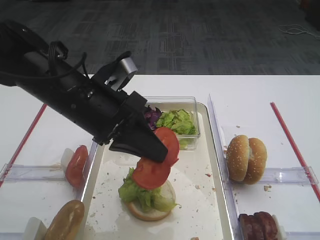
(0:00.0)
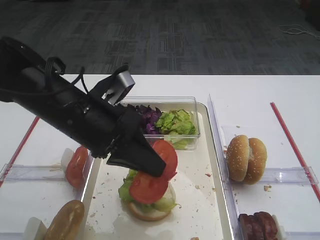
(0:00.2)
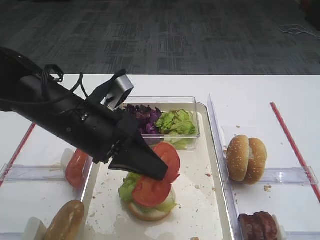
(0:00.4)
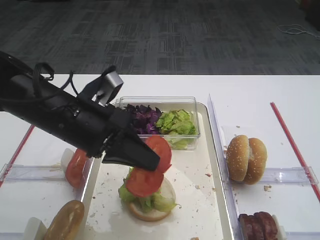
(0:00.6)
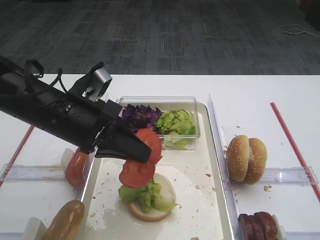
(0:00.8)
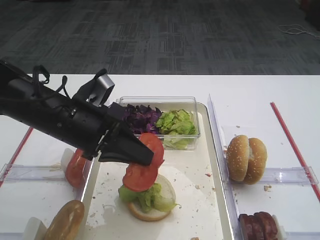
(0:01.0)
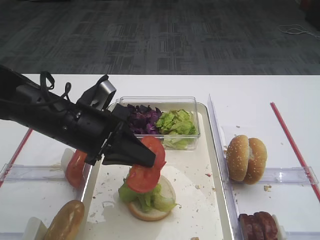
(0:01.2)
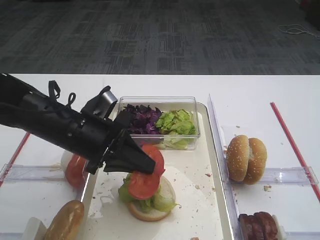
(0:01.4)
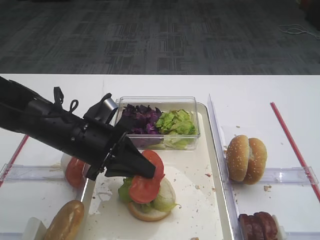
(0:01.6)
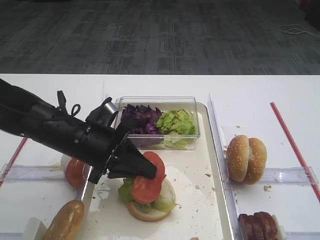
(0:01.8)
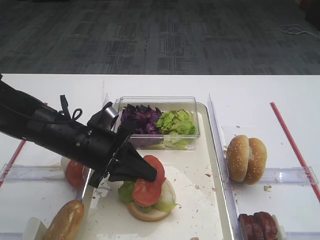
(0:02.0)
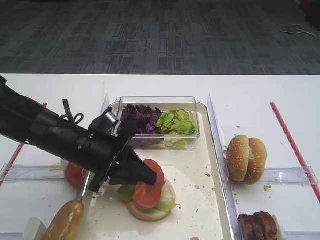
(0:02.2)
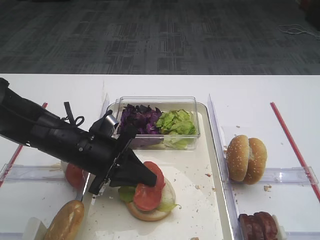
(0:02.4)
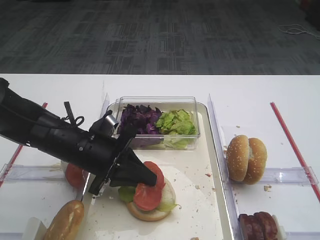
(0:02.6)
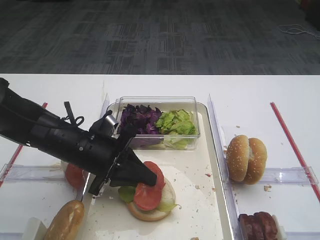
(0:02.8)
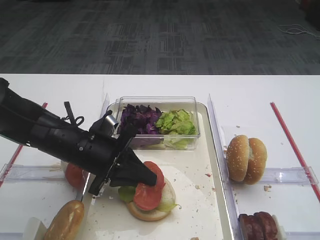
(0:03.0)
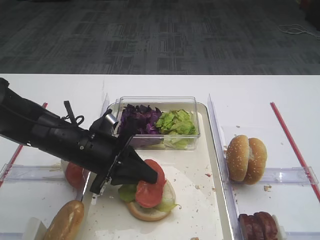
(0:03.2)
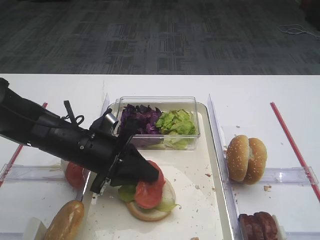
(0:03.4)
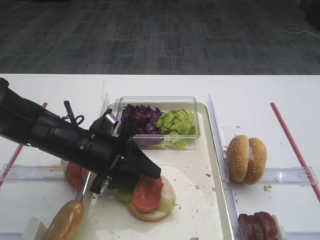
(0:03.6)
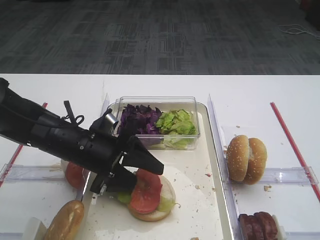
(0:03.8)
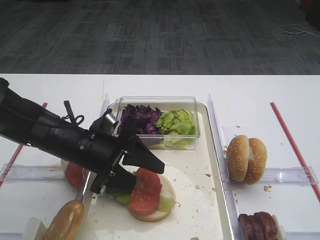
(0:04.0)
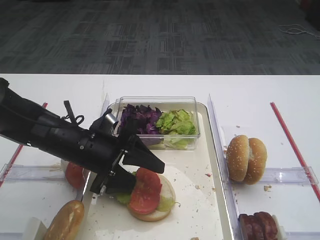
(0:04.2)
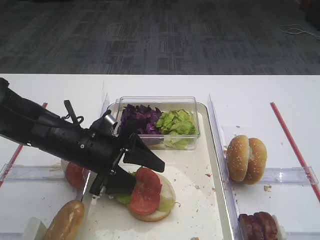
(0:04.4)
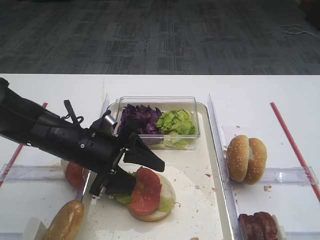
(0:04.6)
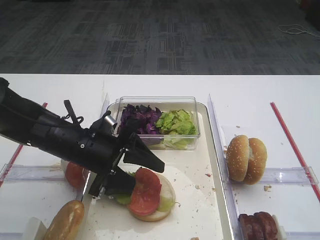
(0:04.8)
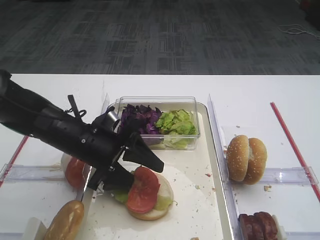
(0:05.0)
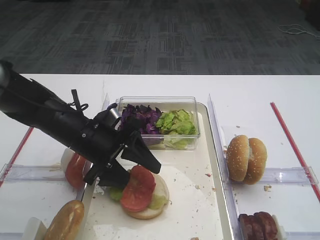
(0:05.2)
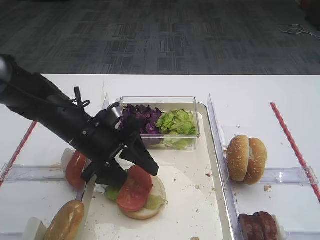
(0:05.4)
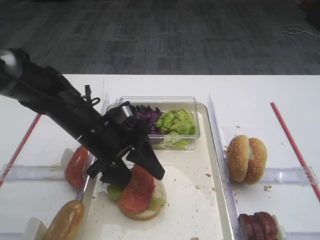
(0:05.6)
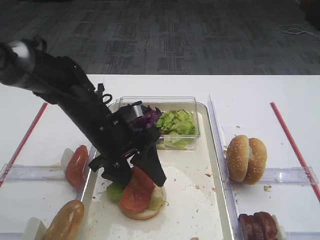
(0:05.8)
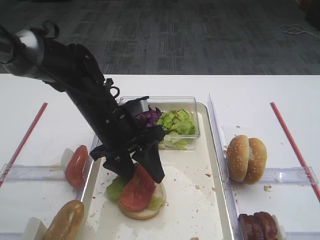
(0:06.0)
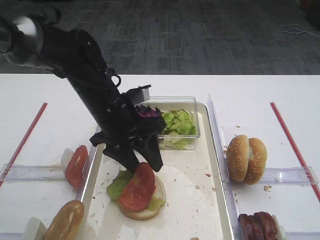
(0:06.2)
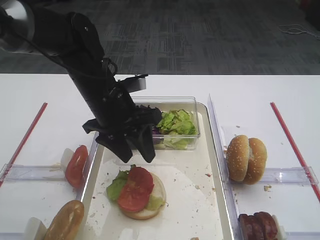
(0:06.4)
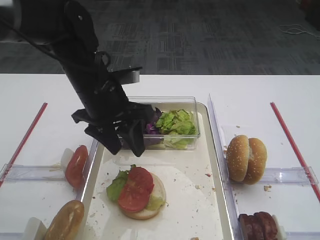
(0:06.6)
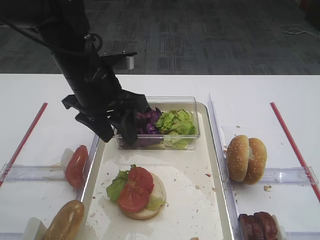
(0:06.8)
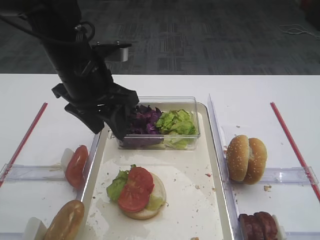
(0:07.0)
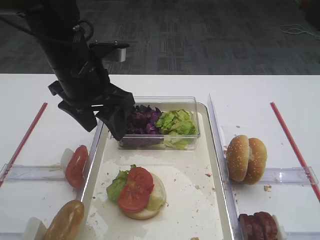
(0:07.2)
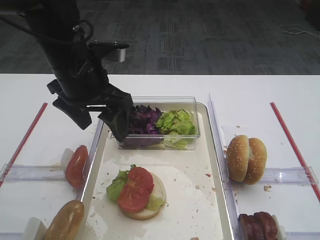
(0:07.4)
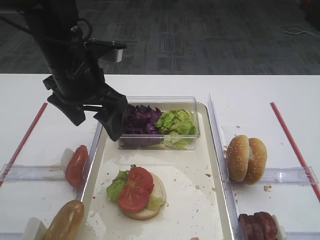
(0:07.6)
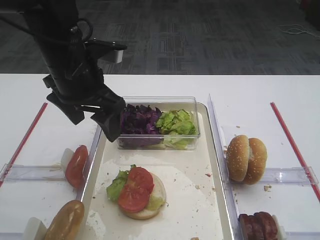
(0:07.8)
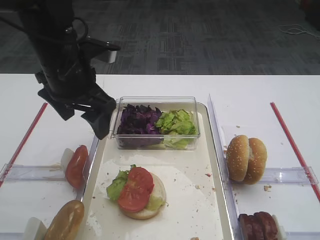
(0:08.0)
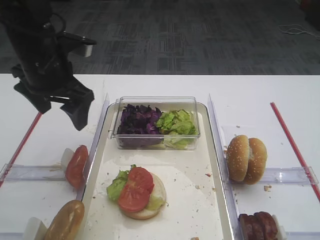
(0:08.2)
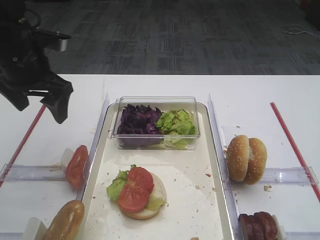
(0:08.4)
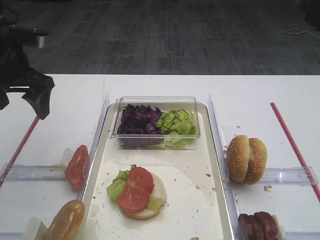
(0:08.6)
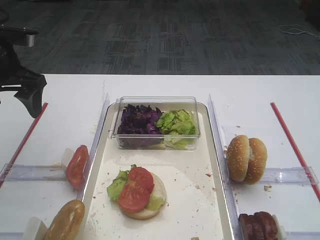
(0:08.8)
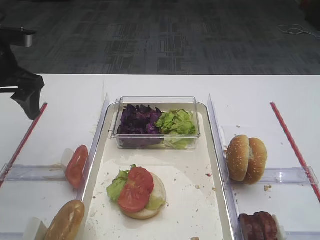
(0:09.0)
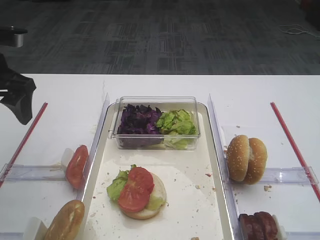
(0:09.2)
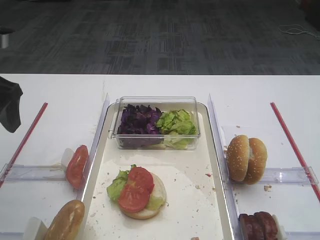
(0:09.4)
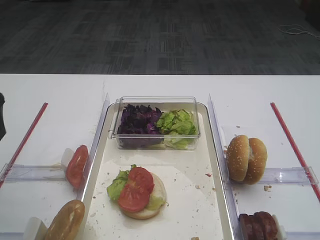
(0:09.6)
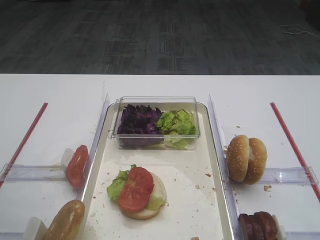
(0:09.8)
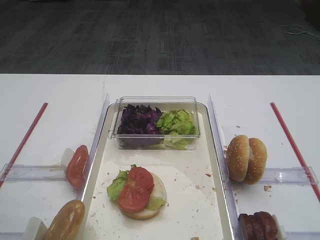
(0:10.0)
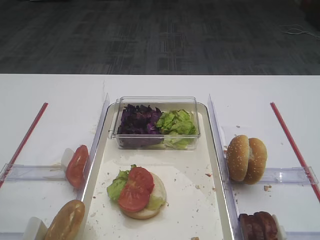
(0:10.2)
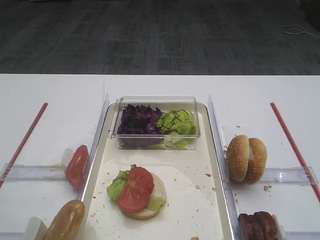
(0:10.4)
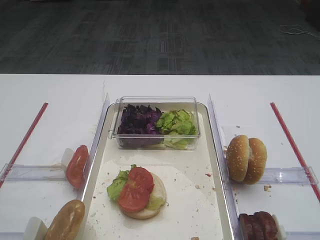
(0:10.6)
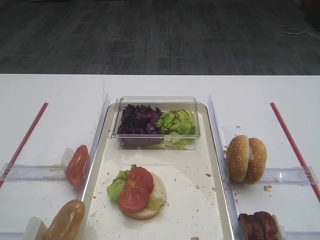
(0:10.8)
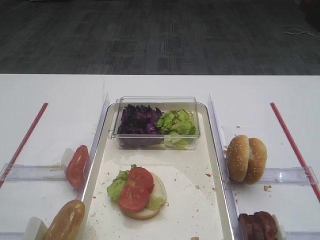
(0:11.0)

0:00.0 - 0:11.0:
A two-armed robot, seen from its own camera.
Step, 0:00.0 - 0:06.4: Place the tomato slice on the lettuce leaf with the left gripper.
0:00.0 - 0:01.6: The left gripper heads downward, covering roughly 10 cm.
0:01.6 - 0:03.2: The grippers move only a little.
0:03.2 - 0:04.8: The left gripper opens.
0:04.8 - 0:06.2: The left gripper travels upward by roughly 5 cm.
0:06.2 - 0:07.8: The left gripper goes about 10 cm upward, and opens.
0:07.8 - 0:09.4: The left gripper goes approximately 15 cm to the left.
0:09.4 - 0:11.0: The left gripper shifts roughly 25 cm backward.

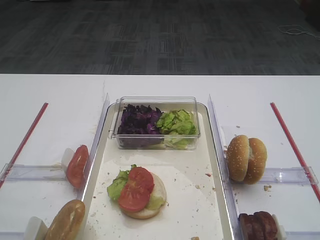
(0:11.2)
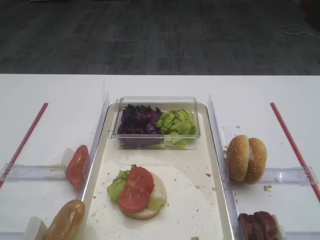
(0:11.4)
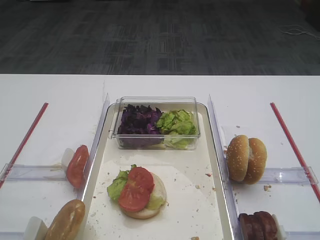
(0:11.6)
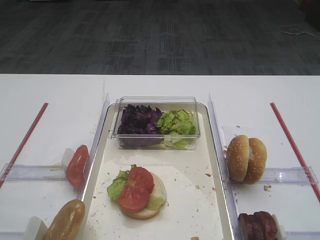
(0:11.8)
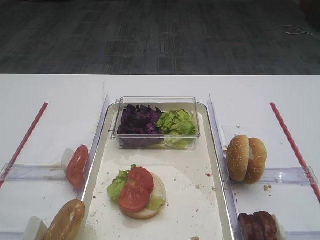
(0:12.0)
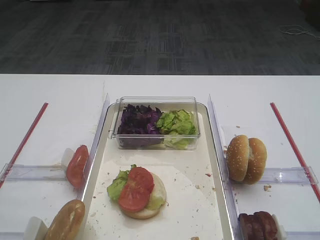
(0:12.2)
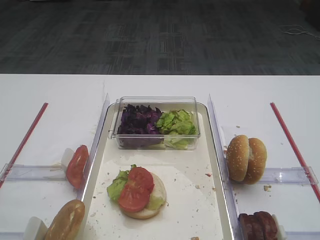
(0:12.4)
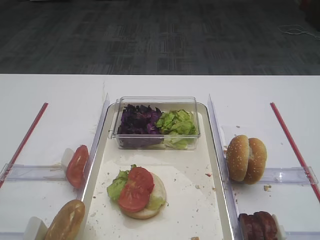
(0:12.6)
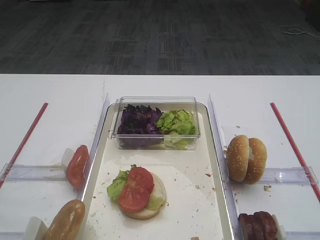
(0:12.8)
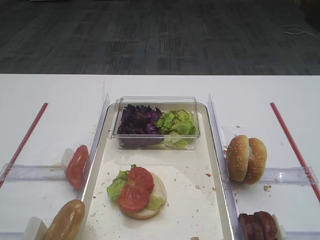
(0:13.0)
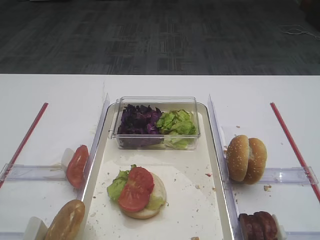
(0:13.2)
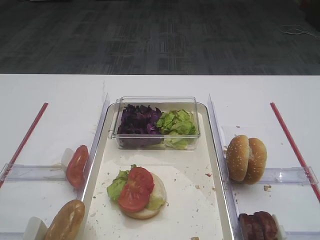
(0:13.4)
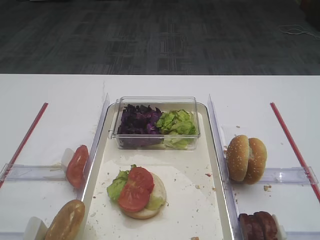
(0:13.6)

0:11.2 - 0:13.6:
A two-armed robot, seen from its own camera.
0:12.4 - 0:13.6: The two grippers keep their place.

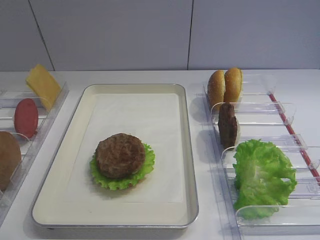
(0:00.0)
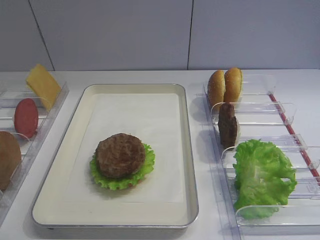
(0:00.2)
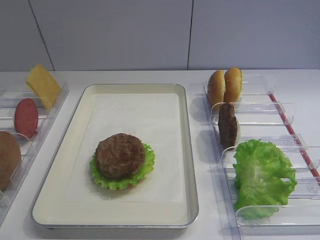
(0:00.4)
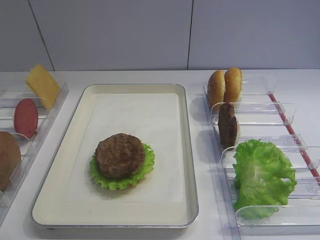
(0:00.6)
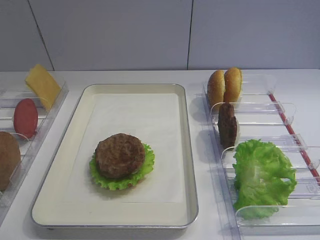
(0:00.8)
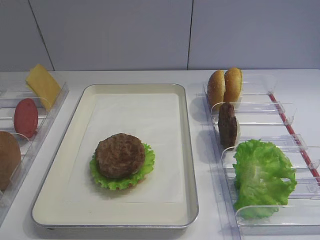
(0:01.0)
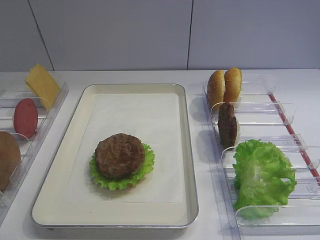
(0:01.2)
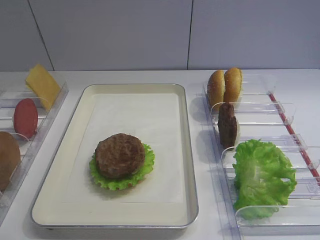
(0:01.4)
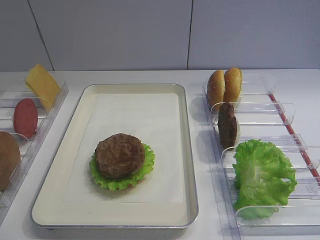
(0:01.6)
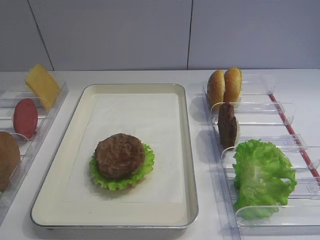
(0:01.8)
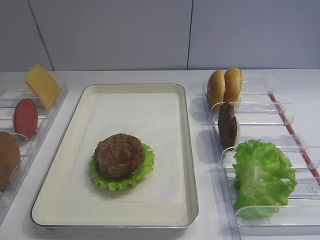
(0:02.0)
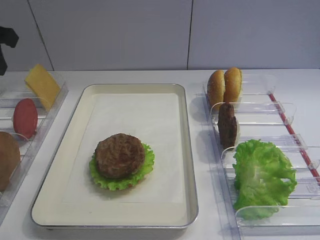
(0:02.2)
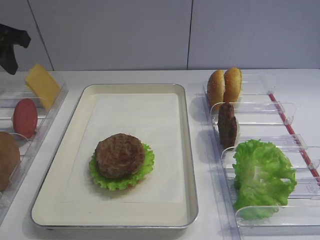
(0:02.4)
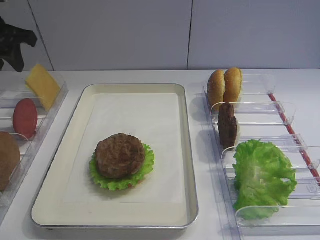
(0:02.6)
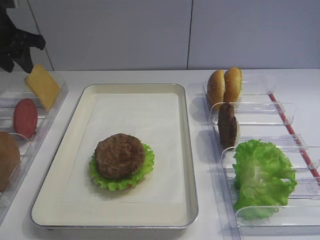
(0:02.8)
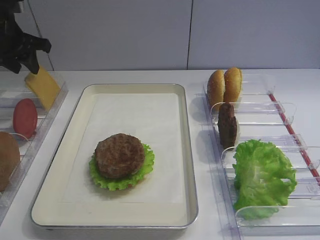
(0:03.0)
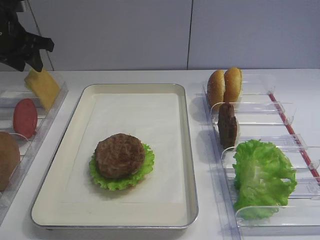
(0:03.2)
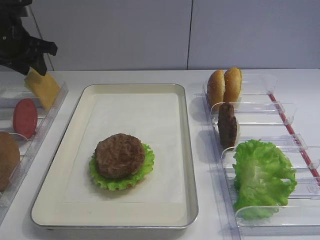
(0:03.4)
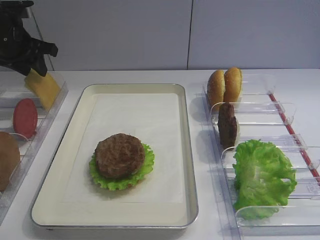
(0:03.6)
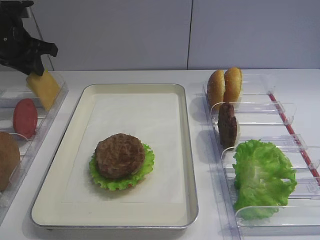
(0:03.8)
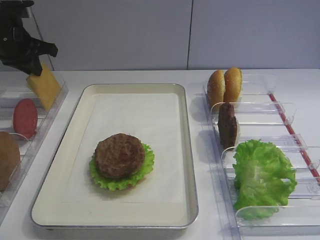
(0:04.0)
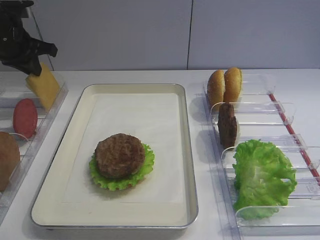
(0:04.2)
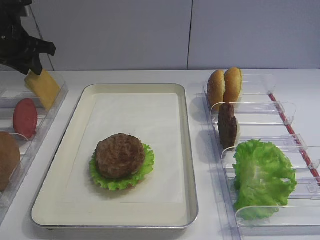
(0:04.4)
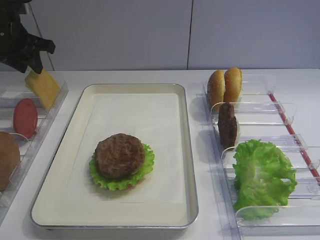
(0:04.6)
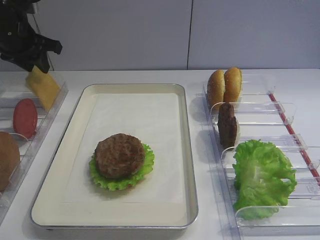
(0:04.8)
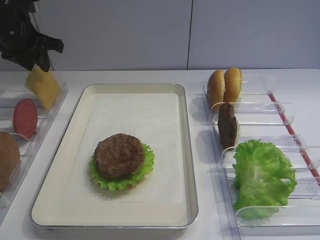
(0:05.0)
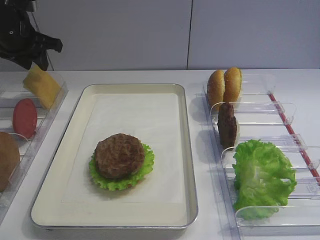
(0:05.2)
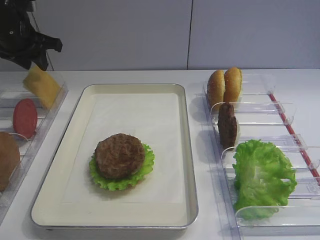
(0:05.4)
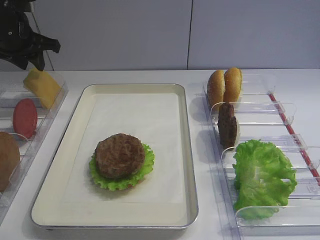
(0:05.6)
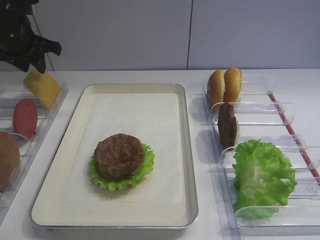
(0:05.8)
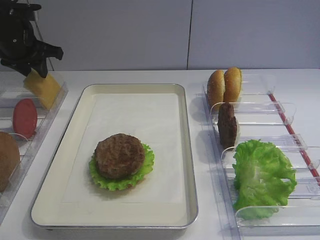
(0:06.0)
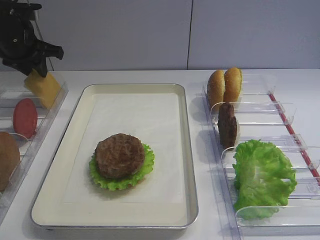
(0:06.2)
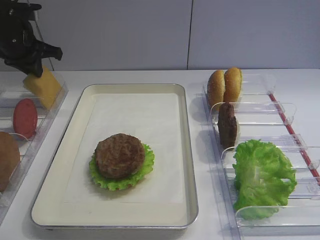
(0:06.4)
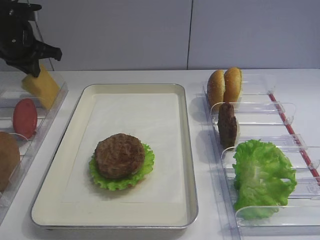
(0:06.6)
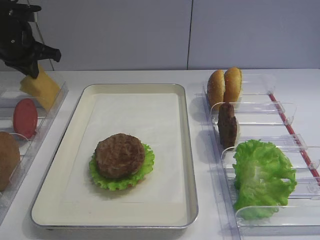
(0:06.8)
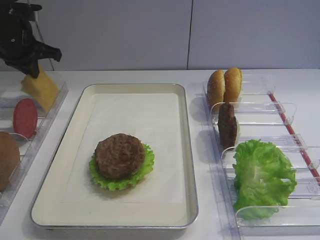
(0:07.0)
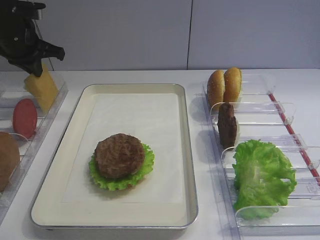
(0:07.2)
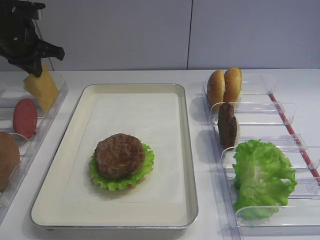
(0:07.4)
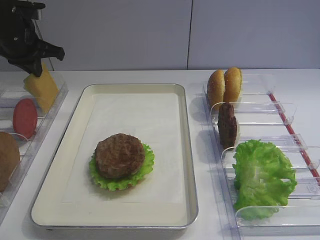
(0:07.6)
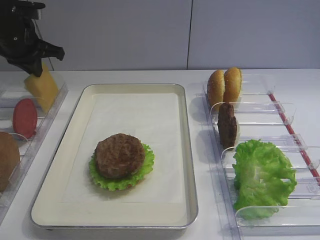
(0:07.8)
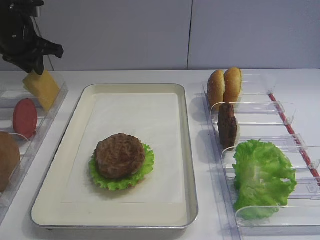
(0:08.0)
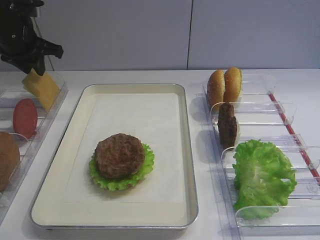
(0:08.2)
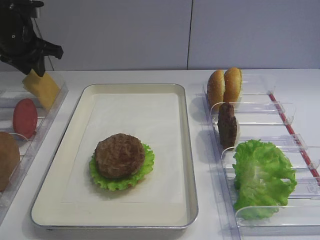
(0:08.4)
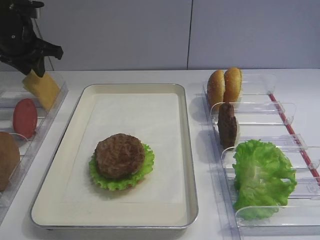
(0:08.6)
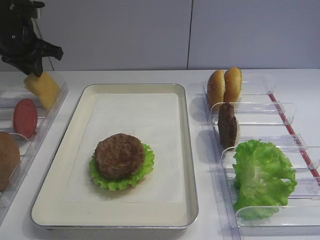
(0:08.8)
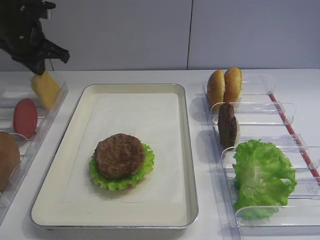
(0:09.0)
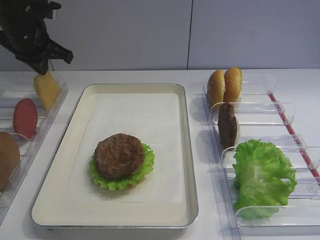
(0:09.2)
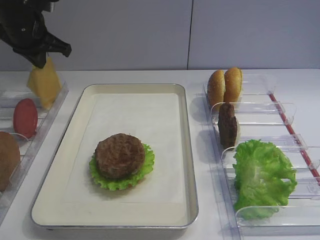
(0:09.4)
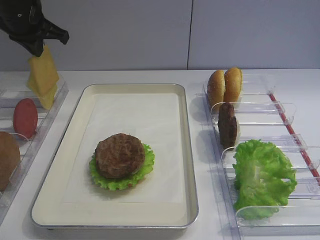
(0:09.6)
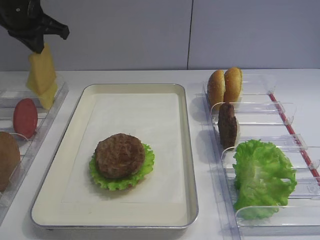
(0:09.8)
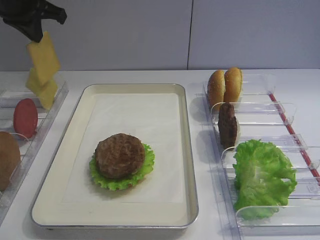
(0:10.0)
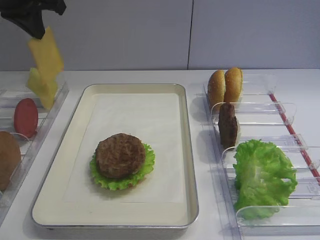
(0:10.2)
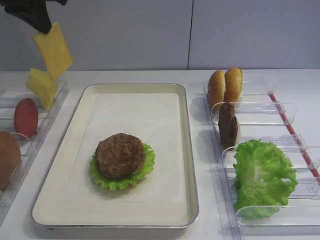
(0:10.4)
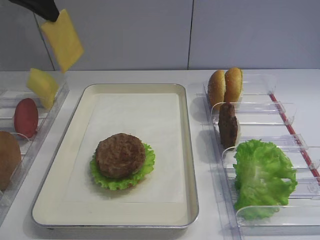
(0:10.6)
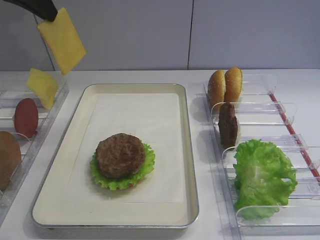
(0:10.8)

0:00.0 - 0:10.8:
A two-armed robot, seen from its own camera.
Step, 0:00.0 - 0:09.8: Pick up the cheese slice with the left gripper.
0:01.6 - 0:03.0: The left gripper moves forward, roughly 25 cm.
0:03.0 - 0:04.6: The left gripper closes, then opens again.
0:04.6 - 0:06.2: The grippers make only small movements.
0:06.2 - 0:07.8: The left gripper closes its fingers.
0:07.8 - 0:09.2: The left gripper opens, then closes again.
0:09.2 - 0:10.8: The left gripper travels upward and backward by roughly 15 cm.
